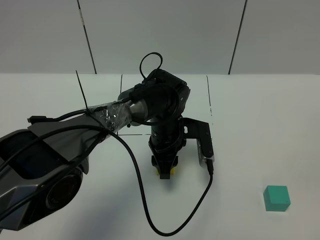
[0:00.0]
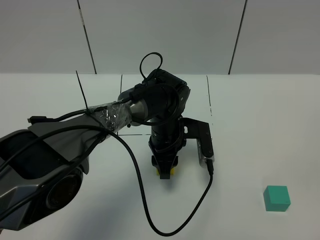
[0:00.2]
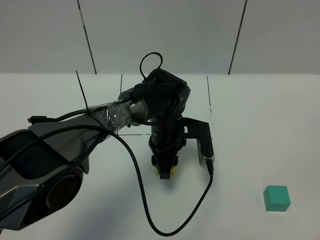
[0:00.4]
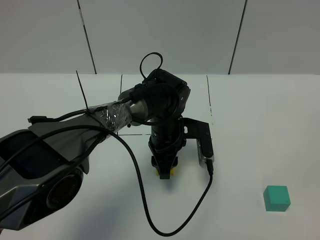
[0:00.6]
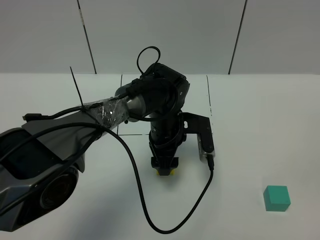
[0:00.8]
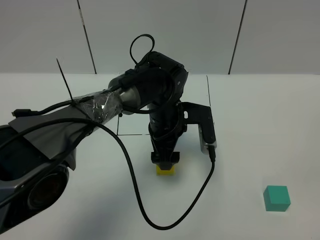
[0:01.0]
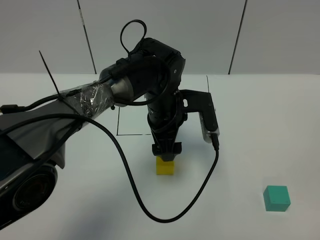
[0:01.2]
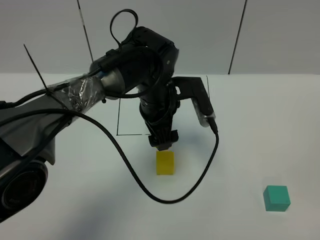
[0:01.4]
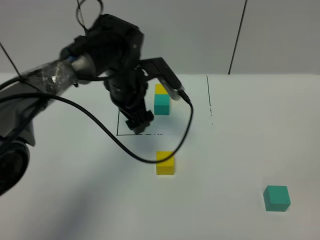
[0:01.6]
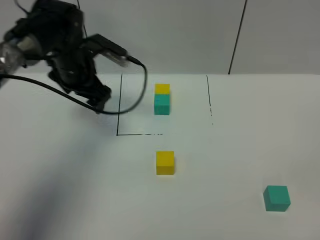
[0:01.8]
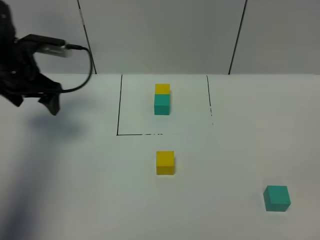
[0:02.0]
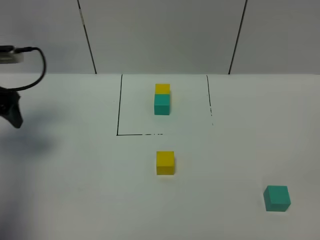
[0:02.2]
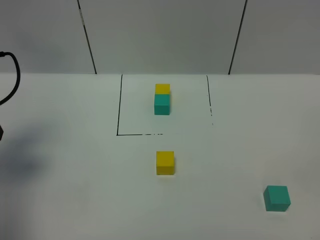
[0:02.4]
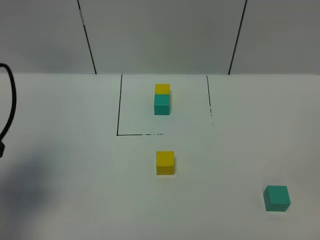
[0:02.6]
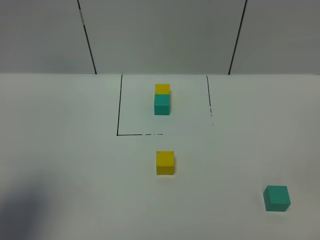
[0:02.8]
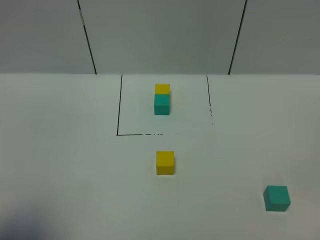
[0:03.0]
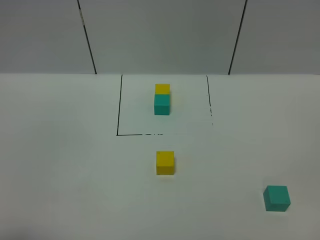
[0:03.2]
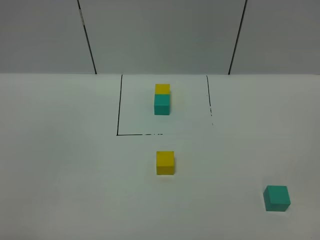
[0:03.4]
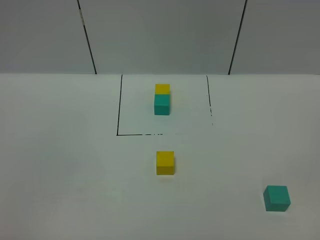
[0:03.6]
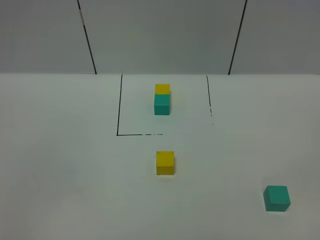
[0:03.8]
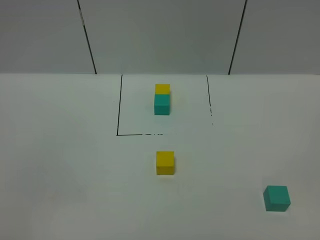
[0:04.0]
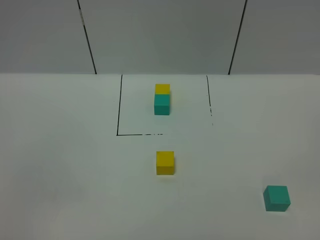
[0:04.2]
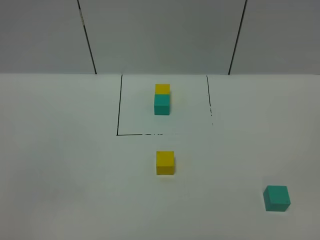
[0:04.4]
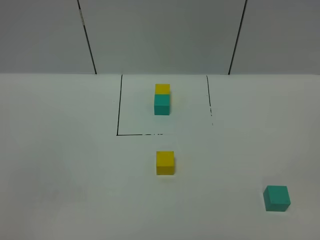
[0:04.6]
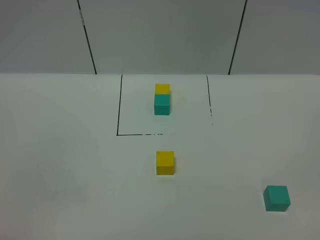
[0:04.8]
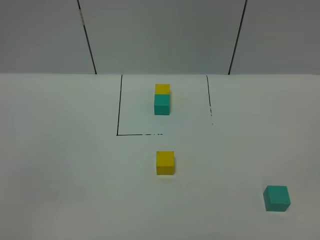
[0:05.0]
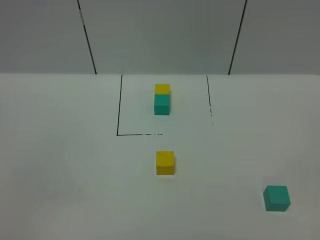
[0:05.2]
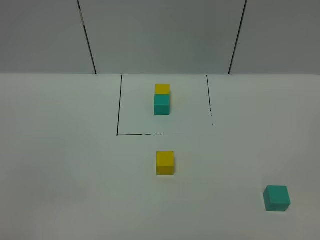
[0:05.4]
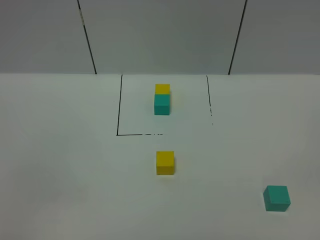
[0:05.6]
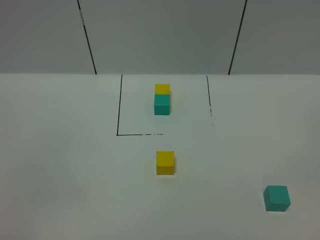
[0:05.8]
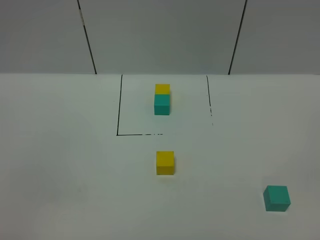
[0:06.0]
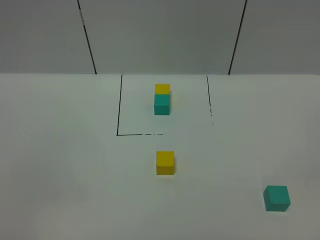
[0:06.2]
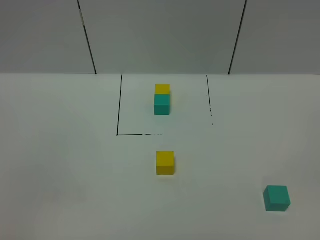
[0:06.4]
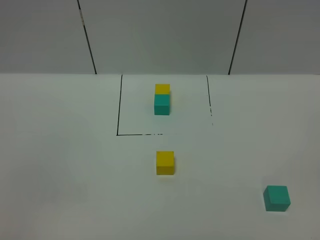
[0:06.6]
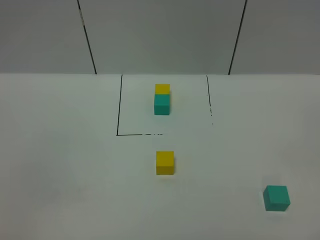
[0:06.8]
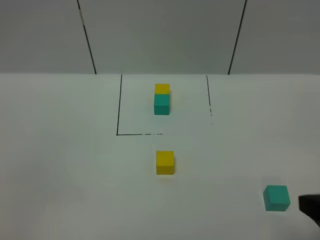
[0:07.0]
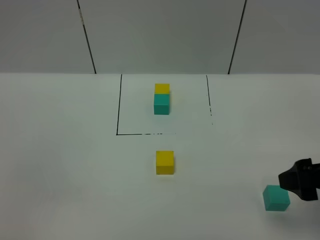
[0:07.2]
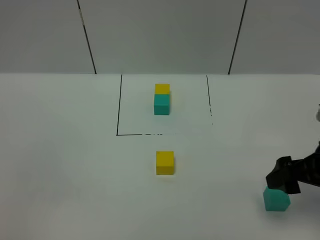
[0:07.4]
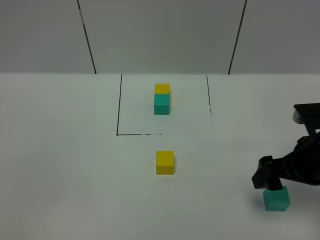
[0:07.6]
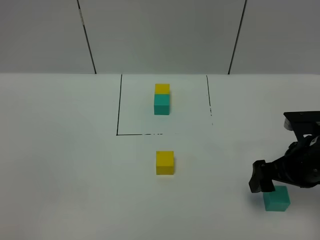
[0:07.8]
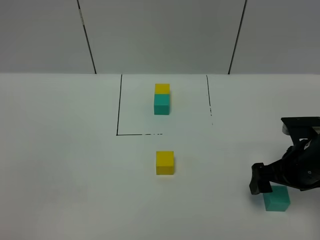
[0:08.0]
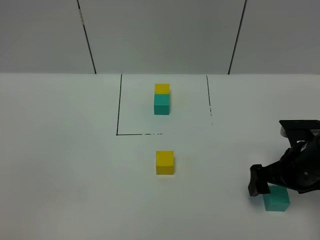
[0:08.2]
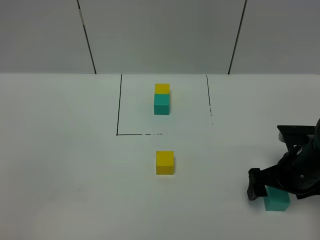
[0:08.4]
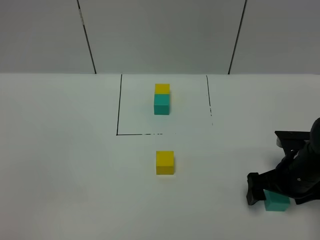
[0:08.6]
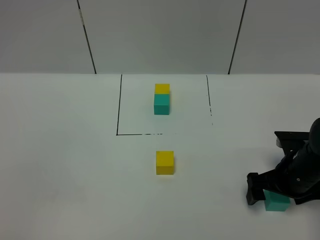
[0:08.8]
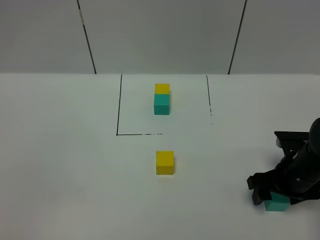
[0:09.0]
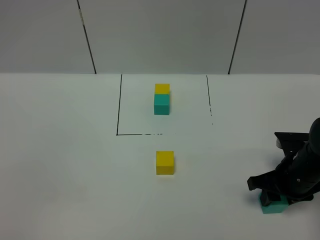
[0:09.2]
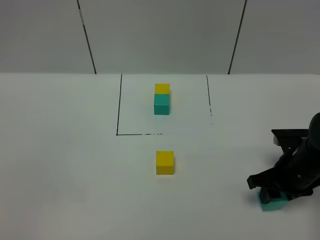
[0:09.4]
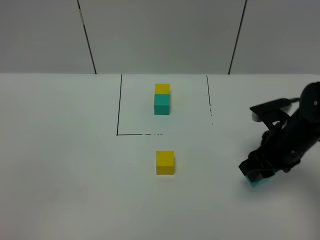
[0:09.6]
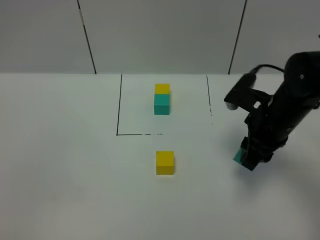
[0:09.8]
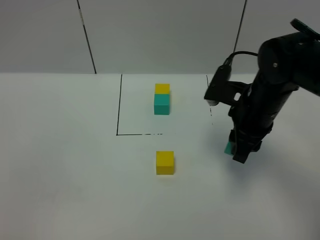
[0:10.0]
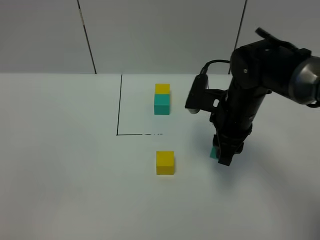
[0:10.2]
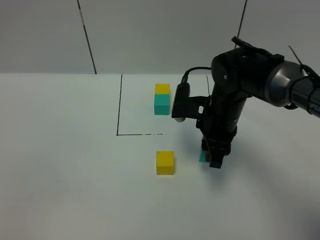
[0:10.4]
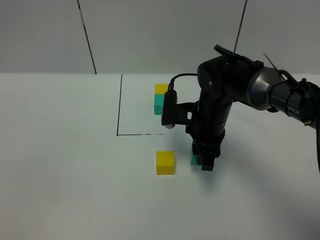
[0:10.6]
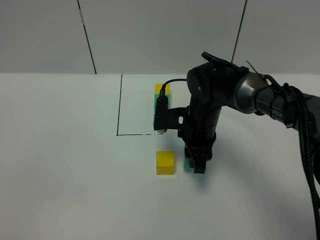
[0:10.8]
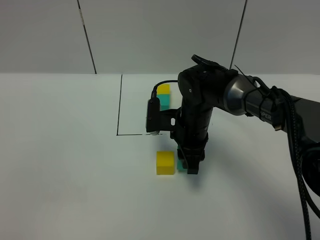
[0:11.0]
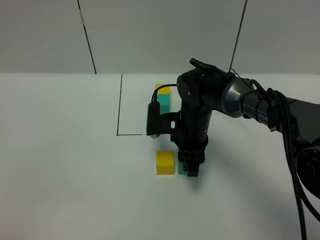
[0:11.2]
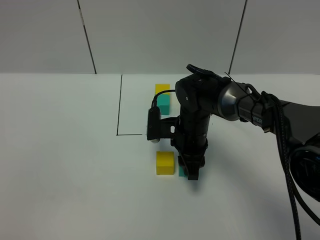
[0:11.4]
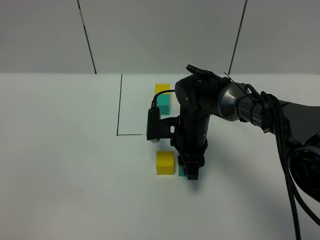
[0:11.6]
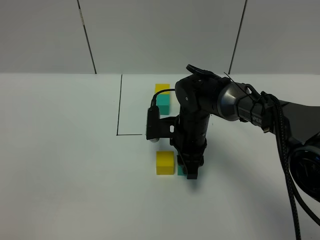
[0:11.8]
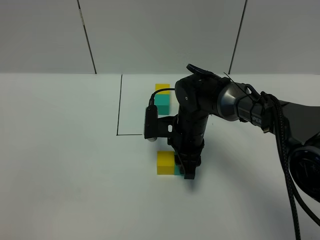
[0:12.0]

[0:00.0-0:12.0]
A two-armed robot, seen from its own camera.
Task of the whole recording: According to the building block template in front, assemble the scattered blocks together.
0:00.0 to 0:01.6: The left gripper shifts approximately 15 cm upward and to the left, and opens its fingers.
0:01.6 to 0:03.0: The left gripper heads backward and to the left, covering some 40 cm.
0:03.0 to 0:04.4: The left gripper travels backward by roughly 10 cm.
0:04.4 to 0:06.0: Both grippers stay about where they are.
0:06.0 to 0:07.6: The right gripper goes about 25 cm forward.
0:07.6 to 0:09.0: The right gripper is displaced downward by approximately 10 cm, and closes its fingers.
0:09.0 to 0:10.4: The right gripper travels to the left, forward and upward by some 20 cm, and closes.
0:10.4 to 0:12.0: The right gripper goes some 10 cm downward and to the left.

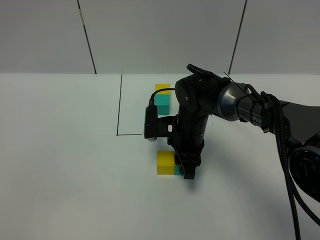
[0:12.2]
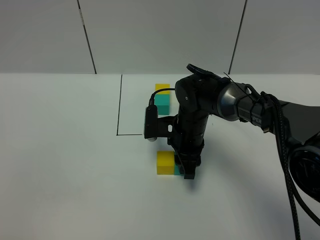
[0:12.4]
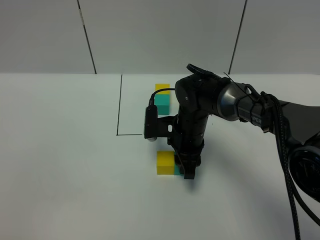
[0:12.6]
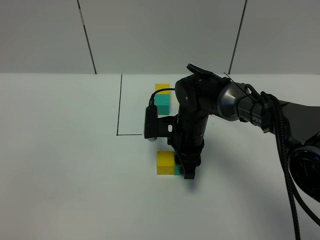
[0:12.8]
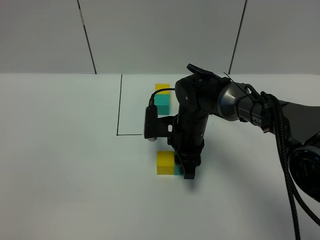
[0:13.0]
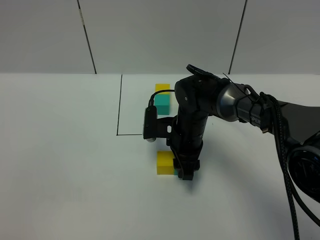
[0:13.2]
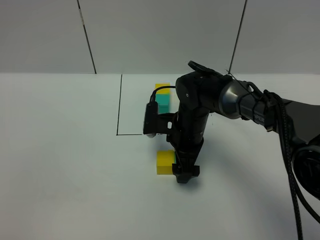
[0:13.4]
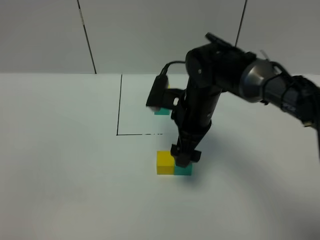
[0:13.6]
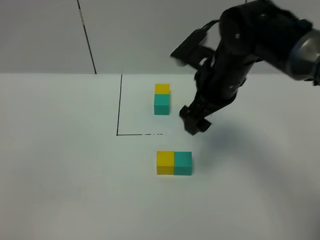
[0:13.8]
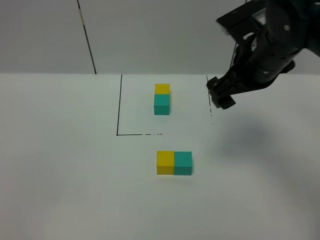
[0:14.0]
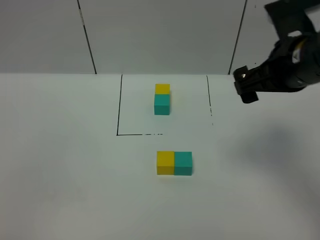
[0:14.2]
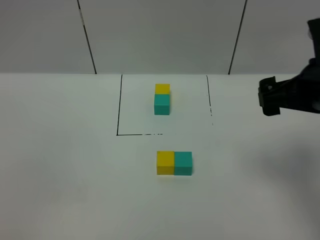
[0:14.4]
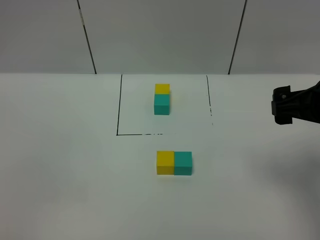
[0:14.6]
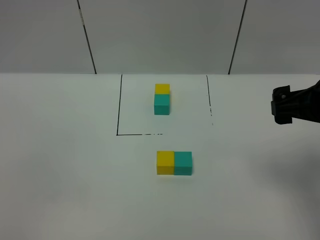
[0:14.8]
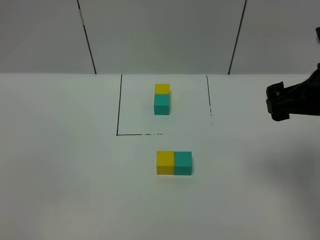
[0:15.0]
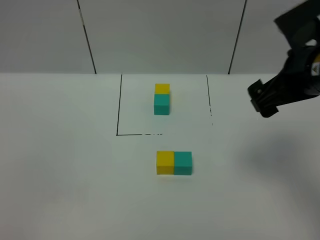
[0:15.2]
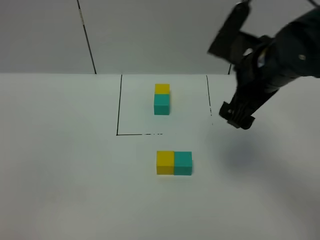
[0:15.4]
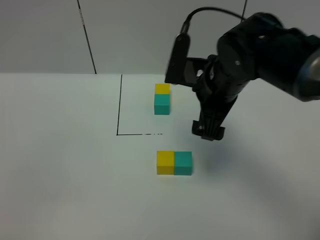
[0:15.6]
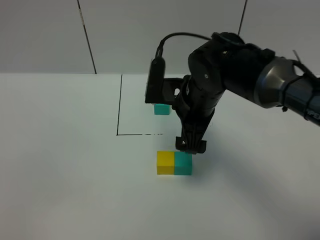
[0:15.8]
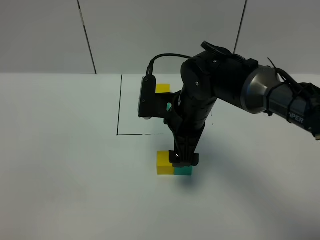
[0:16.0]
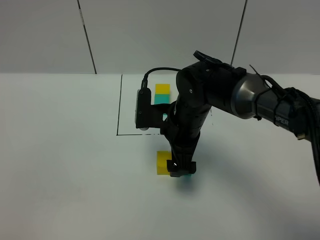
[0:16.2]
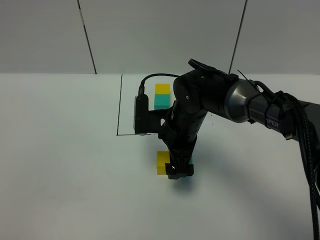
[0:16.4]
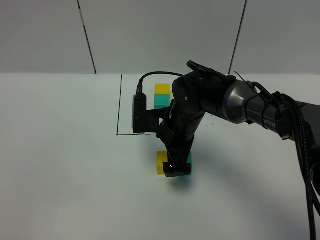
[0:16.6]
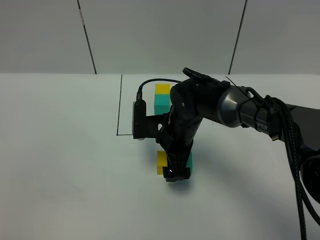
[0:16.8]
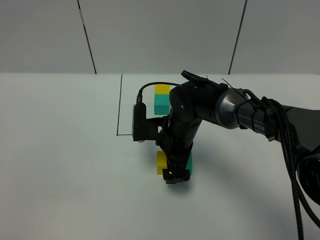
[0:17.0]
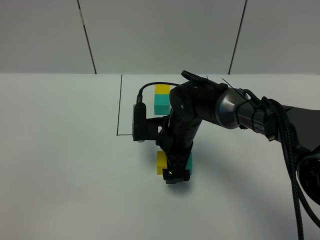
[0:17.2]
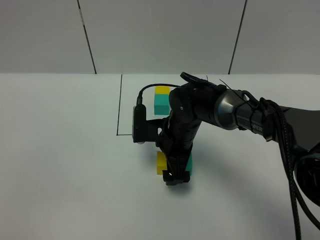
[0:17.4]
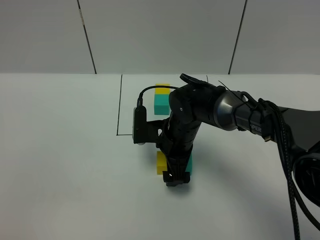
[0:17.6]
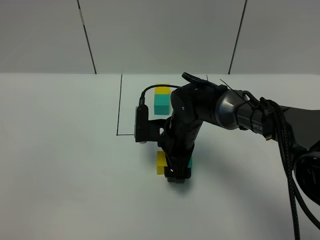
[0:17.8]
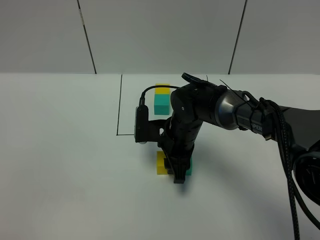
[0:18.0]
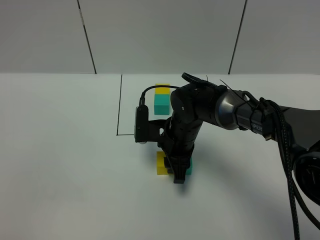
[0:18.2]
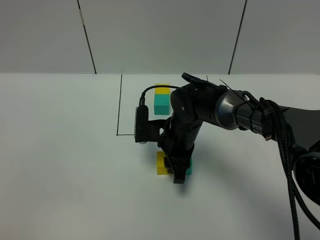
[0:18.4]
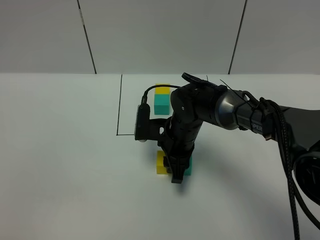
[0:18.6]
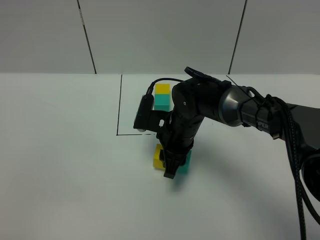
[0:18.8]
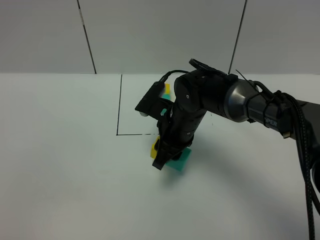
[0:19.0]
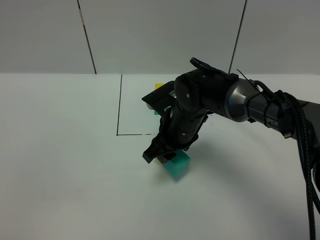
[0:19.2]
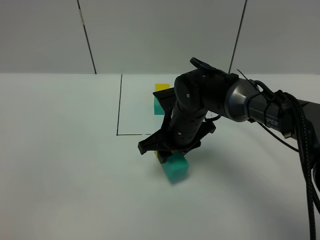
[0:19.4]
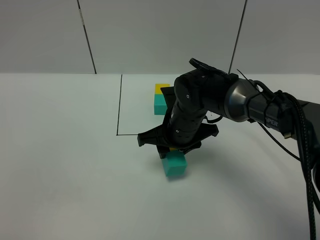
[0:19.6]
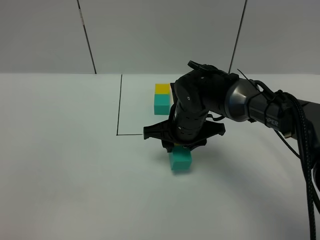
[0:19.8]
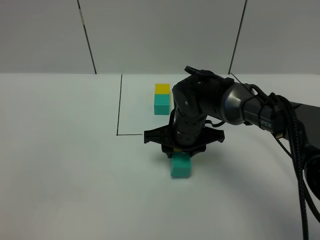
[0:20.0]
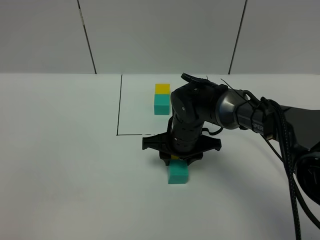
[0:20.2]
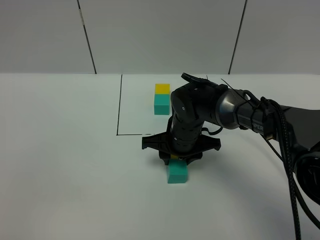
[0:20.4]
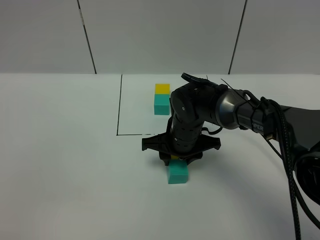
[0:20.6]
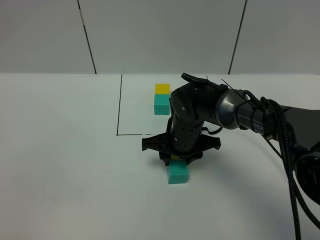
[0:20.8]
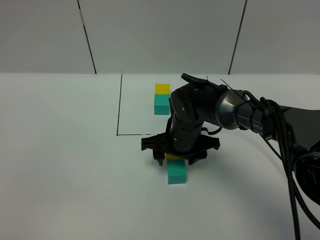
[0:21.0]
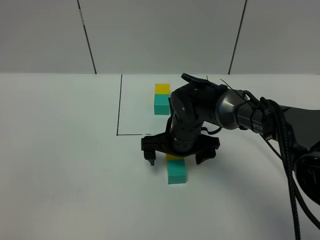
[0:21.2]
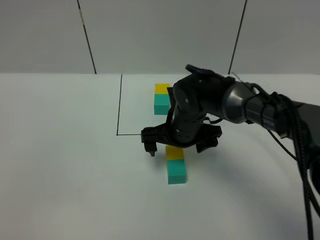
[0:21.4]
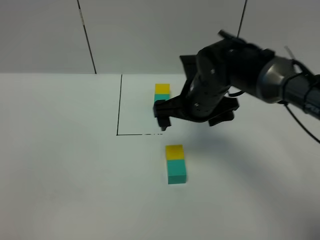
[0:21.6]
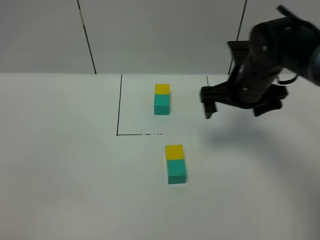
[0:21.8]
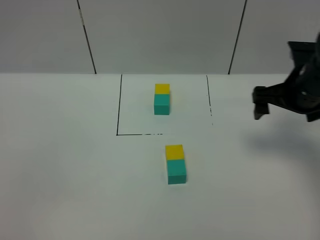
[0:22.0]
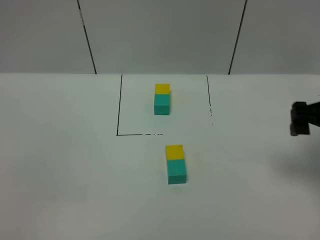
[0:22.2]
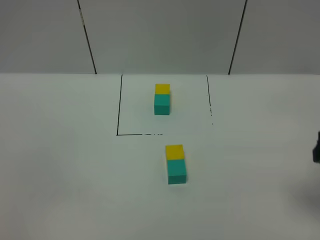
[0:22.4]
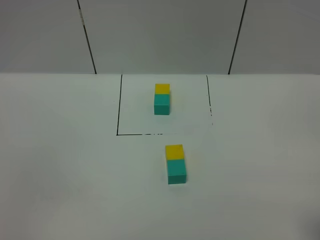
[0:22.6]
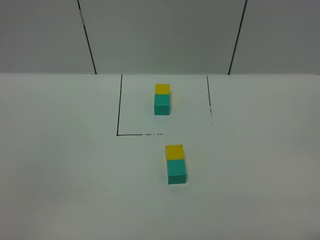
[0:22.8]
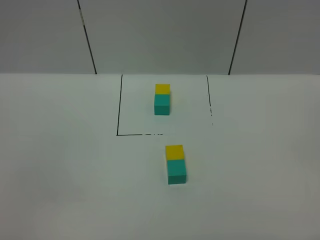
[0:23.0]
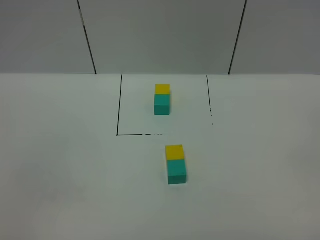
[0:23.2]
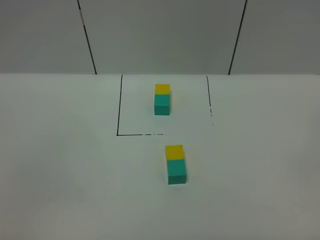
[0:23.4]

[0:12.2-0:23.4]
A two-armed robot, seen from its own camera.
Task of the whole recording: According to the building block template in front, assemble the scattered blocks together.
Step, 0:13.6 to 0:21.2: Adjust the pose of the building blocks.
0:12.2 to 0:13.8: The right gripper heads upward, covering approximately 15 cm, and opens.
0:13.8 to 0:15.4: The right gripper goes to the right and returns, some 10 cm each way.
0:15.4 to 0:17.0: The right gripper is displaced downward and to the left by roughly 20 cm.
0:17.0 to 0:18.6: The right gripper closes its fingers.
0:20.2 to 0:21.8: The right gripper goes some 15 cm to the right and upward, and opens its fingers.
0:21.8 to 0:23.4: The right gripper moves backward, about 40 cm.
